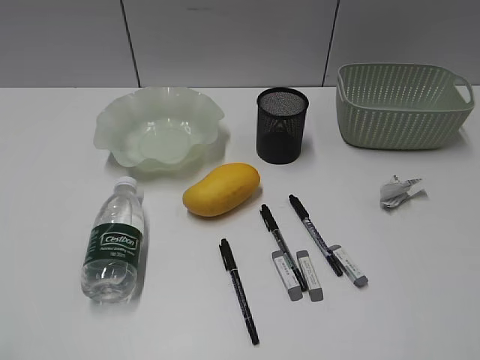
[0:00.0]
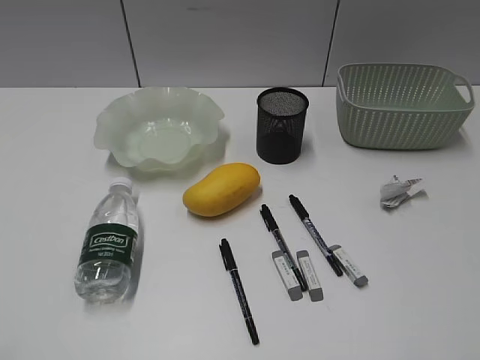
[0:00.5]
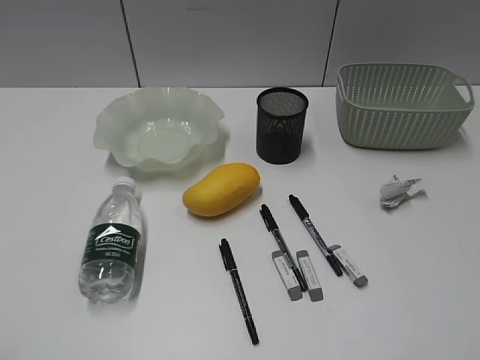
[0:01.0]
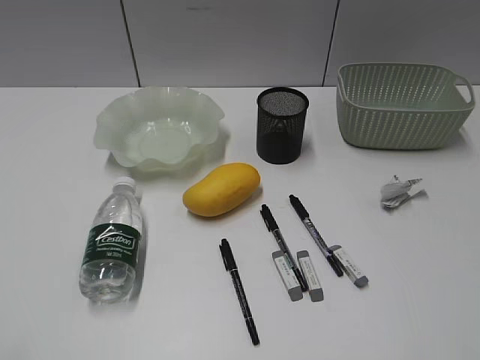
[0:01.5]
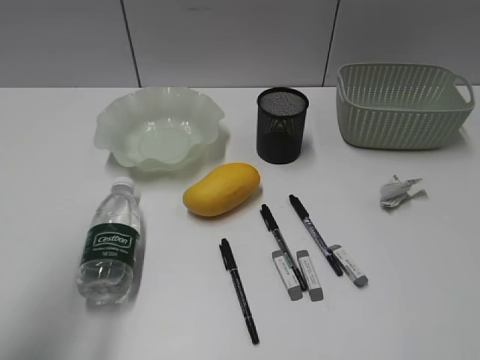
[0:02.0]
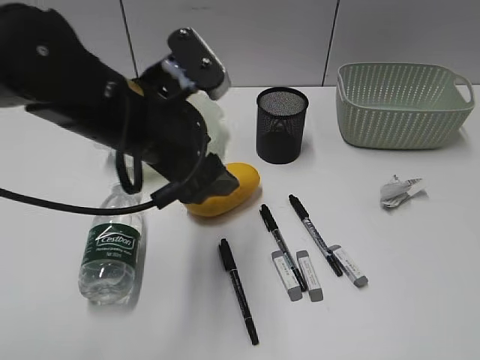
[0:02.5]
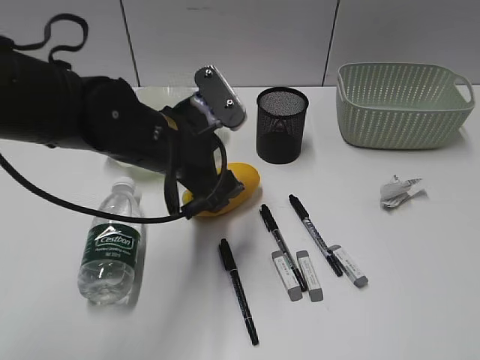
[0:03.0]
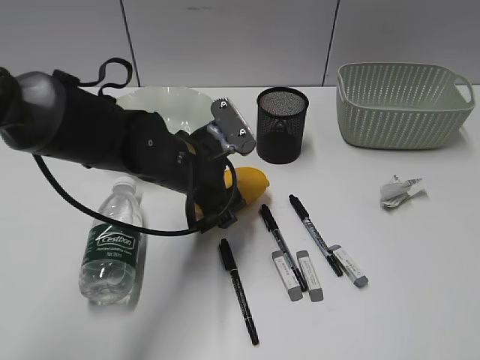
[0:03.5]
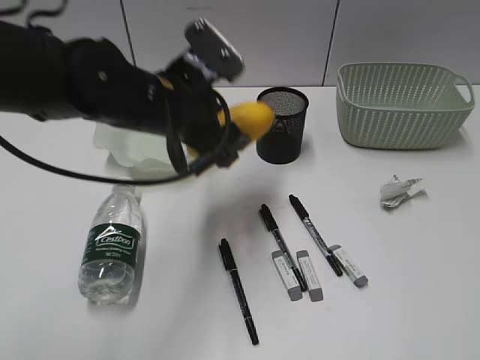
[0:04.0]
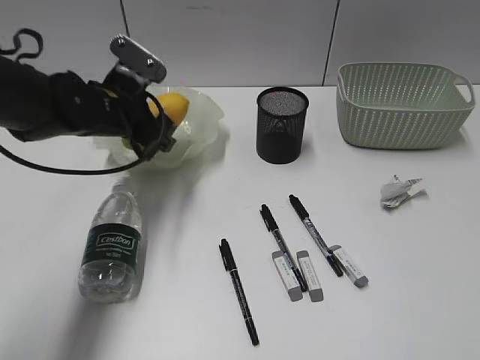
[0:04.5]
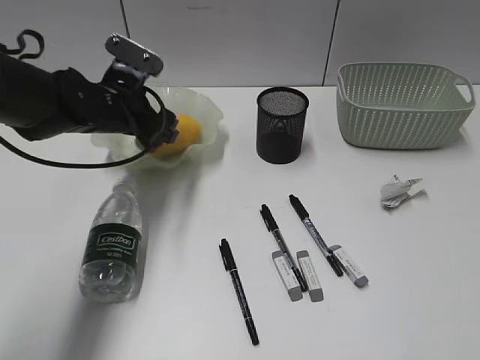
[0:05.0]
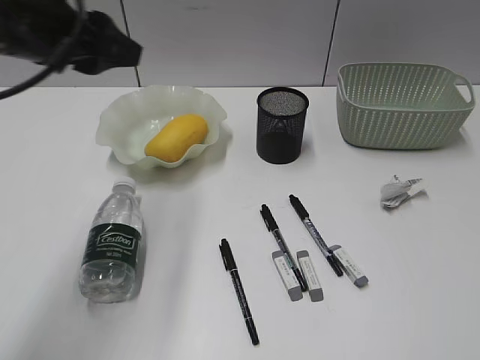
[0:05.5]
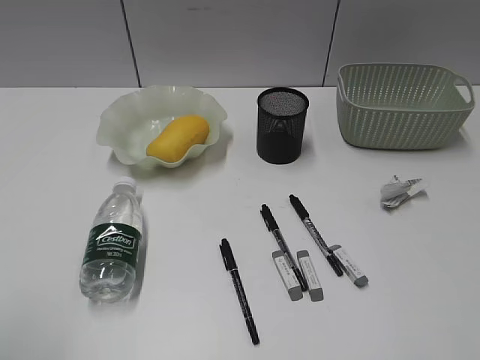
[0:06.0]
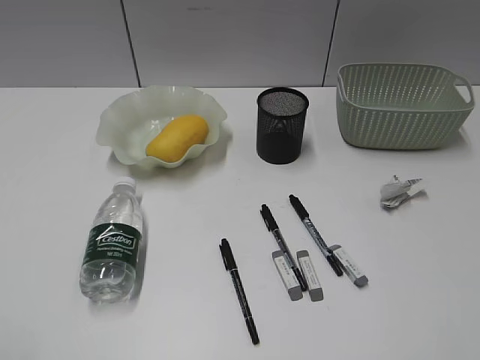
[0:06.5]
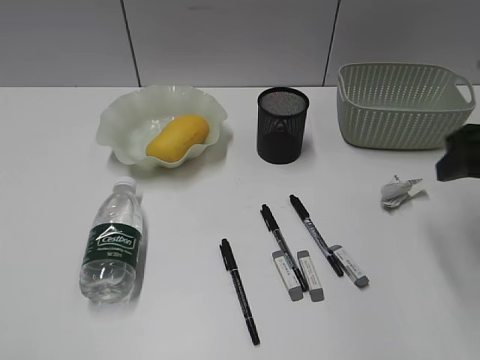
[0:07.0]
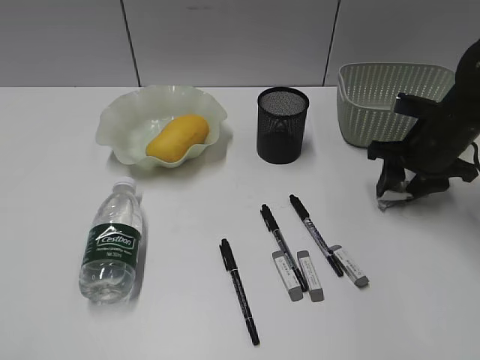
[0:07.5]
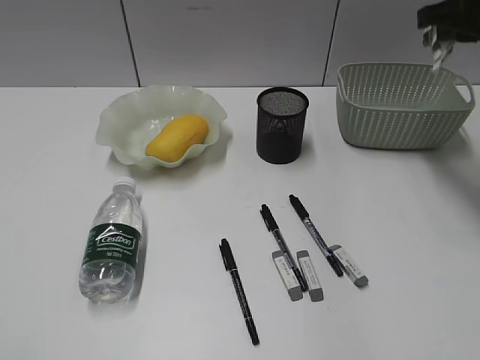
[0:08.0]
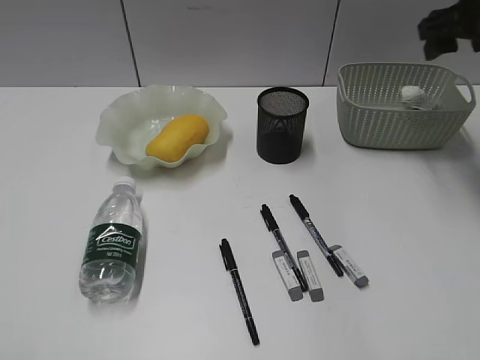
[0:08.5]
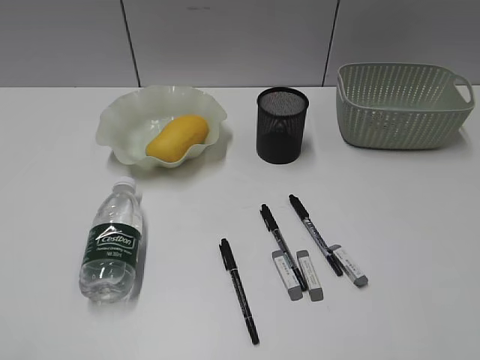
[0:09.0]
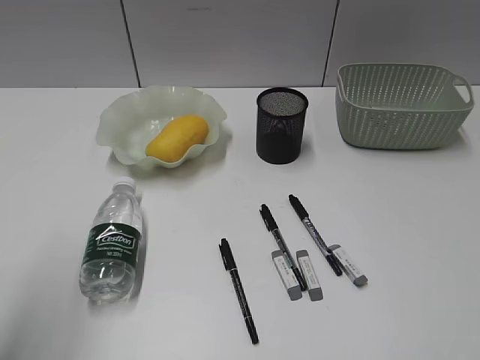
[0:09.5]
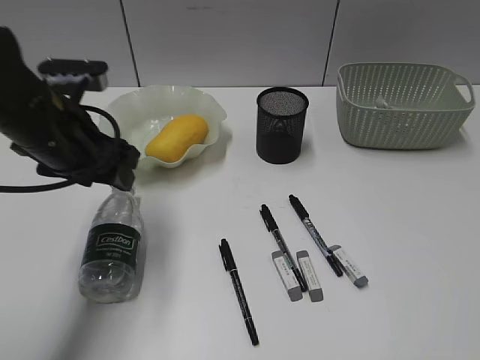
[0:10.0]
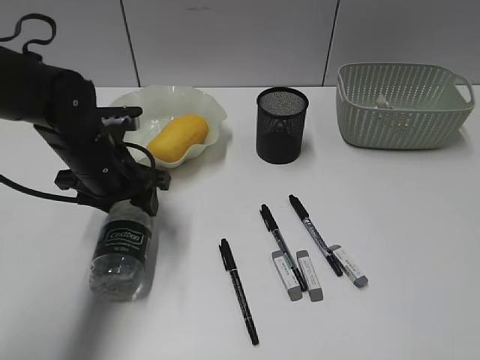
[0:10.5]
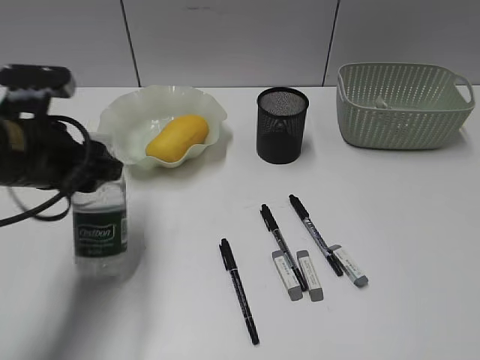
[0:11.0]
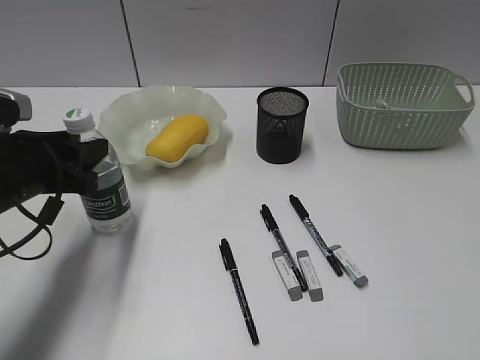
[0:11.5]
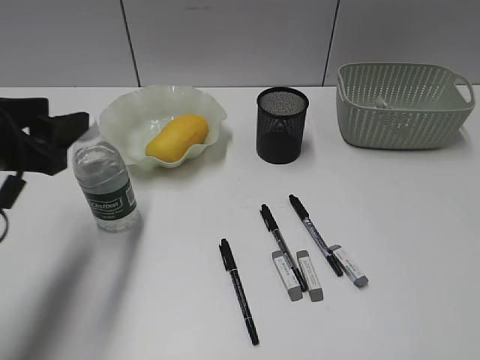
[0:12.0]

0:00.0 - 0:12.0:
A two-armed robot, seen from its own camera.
Step, 0:02.0 - 0:03.5: Grasp the mango with left gripper.
Step, 0:04.0 - 0:05.0: Place the mango in the plate with left gripper.
Step, 0:05.5 - 0:07.5: Grasp the waste paper with right gripper.
Step, 0:08.5 - 0:10.5: Grasp the bottle with left gripper.
Step, 0:11.0 - 0:12.0: Stand the bottle with left gripper.
0:02.0 - 0:04.0: The left gripper moves to the right, forward and downward, approximately 25 cm.
0:04.0 - 0:06.0: The left gripper moves backward, to the left and upward, some 35 cm.
0:06.0 - 0:08.0: The right gripper travels forward by roughly 40 cm, and closes up.
0:08.0 - 0:10.0: The left gripper heads forward and to the right, covering approximately 35 cm. Meanwhile the right gripper travels backward by approximately 40 cm, and opens up.
0:10.0 - 0:12.0: The left gripper goes roughly 10 cm backward and to the left.

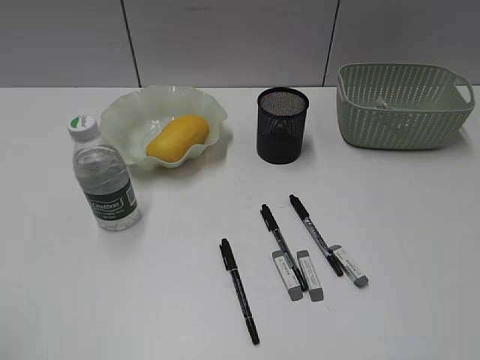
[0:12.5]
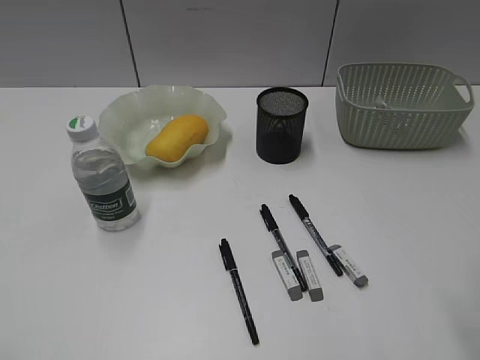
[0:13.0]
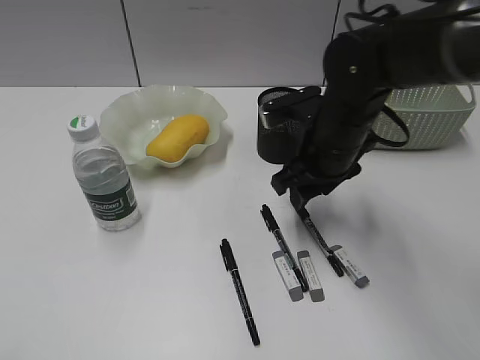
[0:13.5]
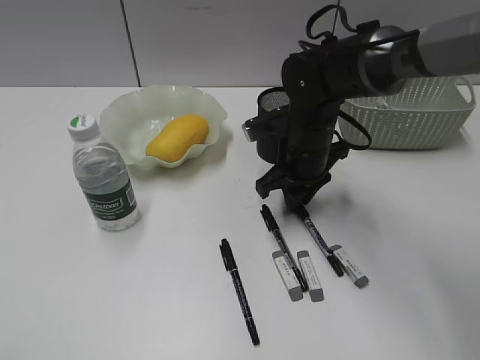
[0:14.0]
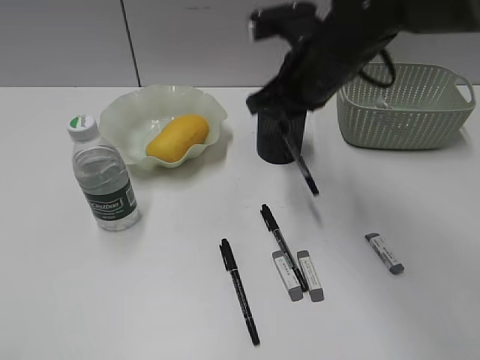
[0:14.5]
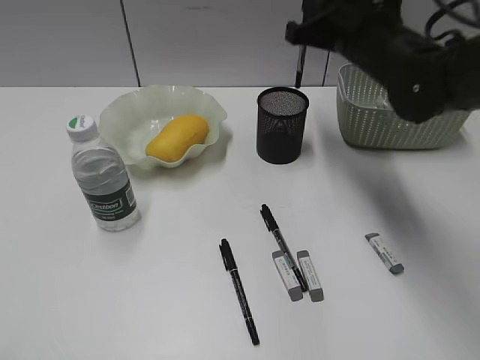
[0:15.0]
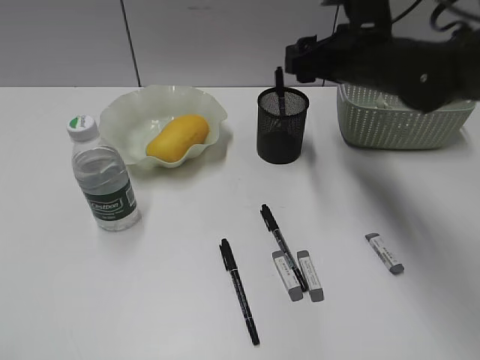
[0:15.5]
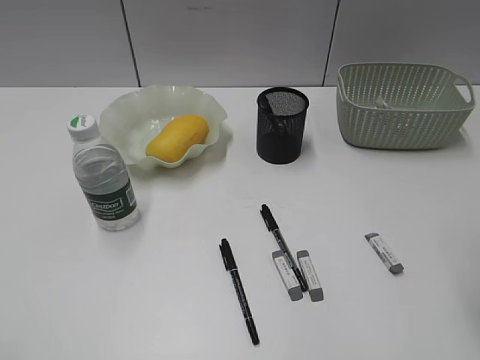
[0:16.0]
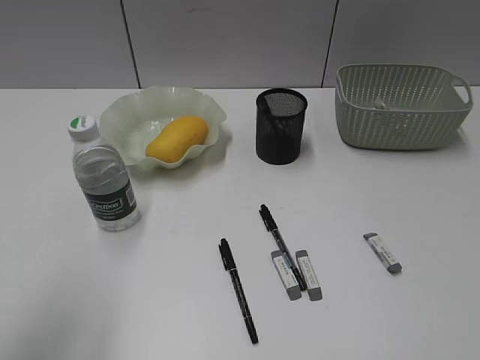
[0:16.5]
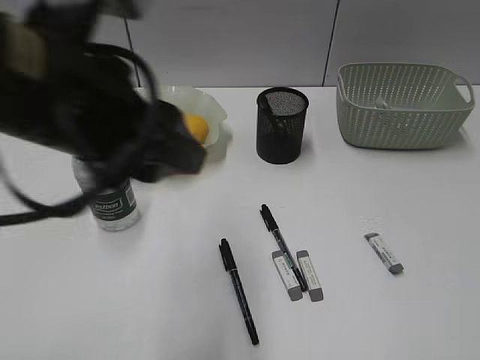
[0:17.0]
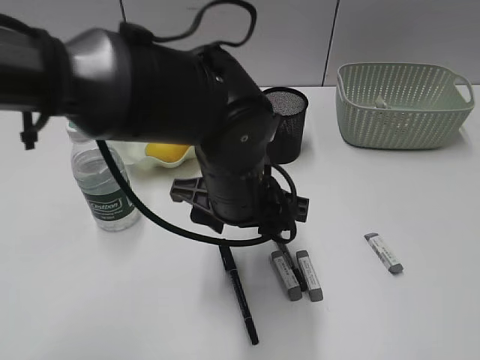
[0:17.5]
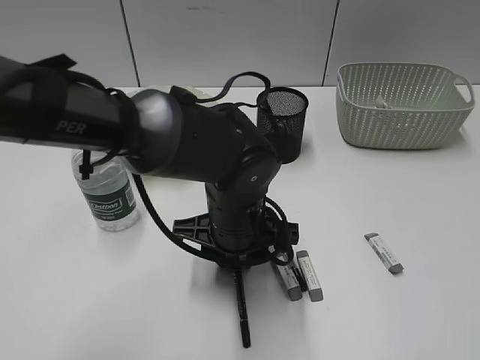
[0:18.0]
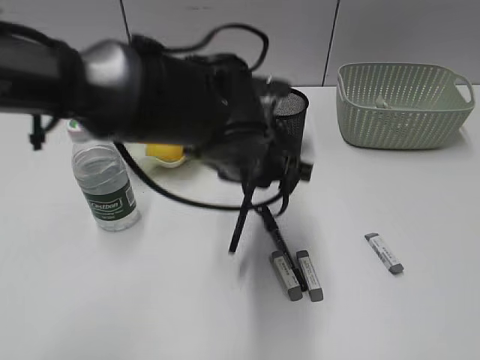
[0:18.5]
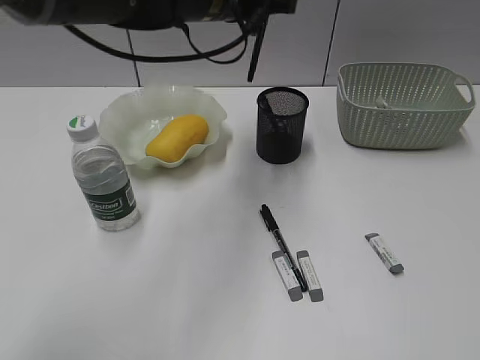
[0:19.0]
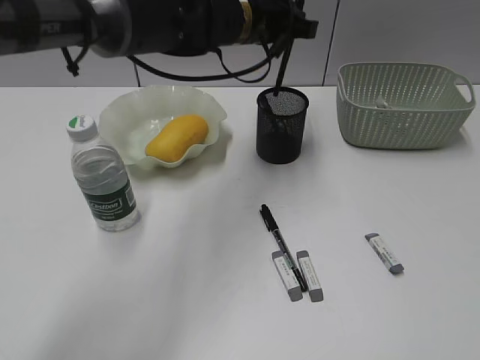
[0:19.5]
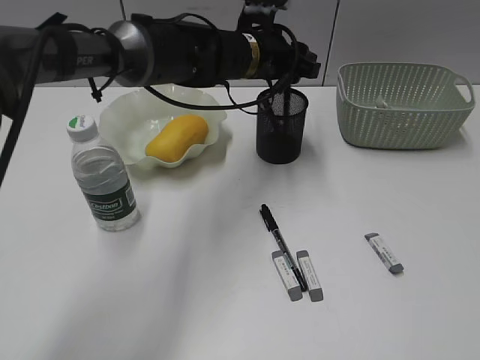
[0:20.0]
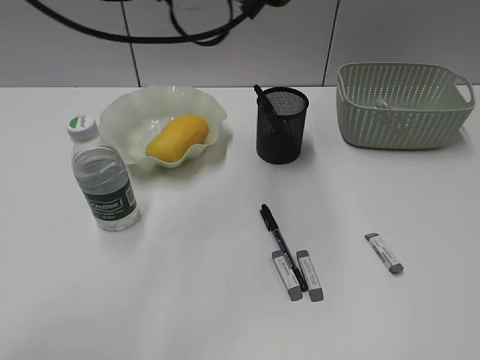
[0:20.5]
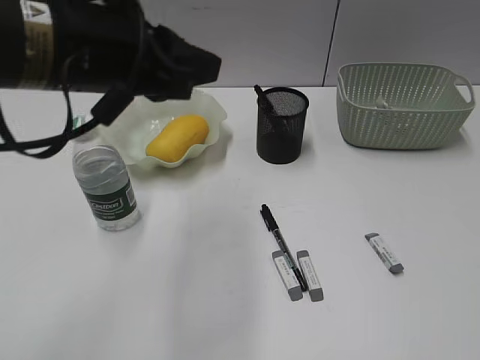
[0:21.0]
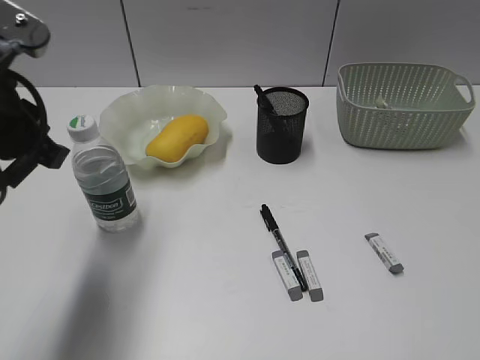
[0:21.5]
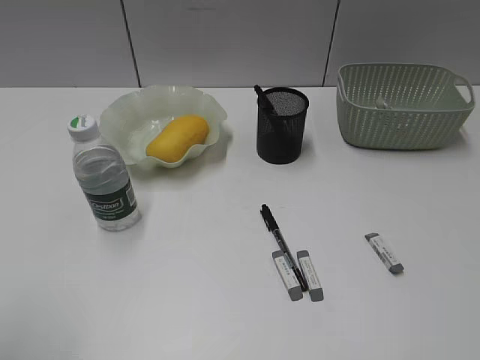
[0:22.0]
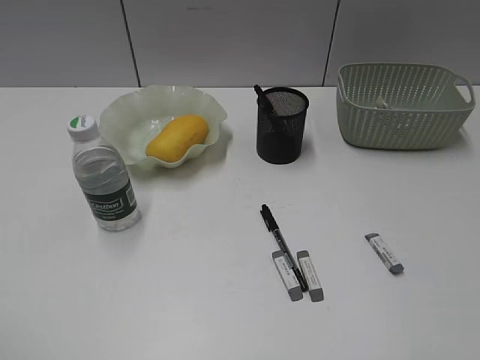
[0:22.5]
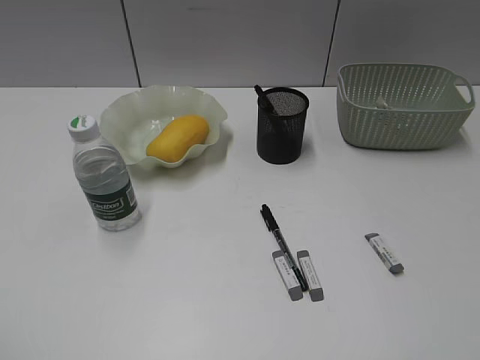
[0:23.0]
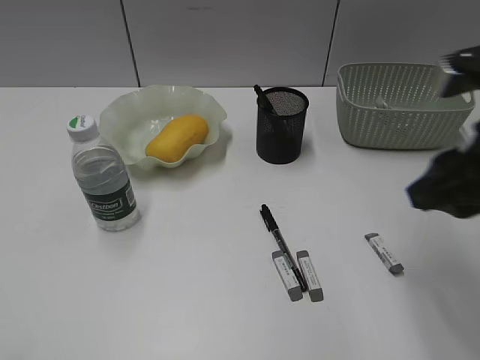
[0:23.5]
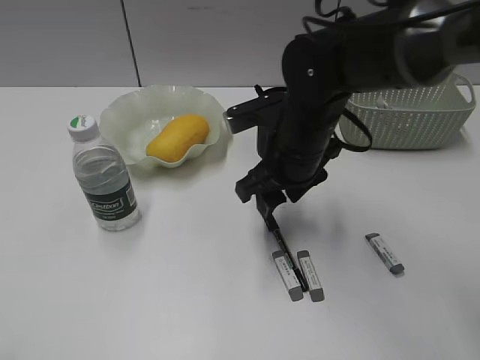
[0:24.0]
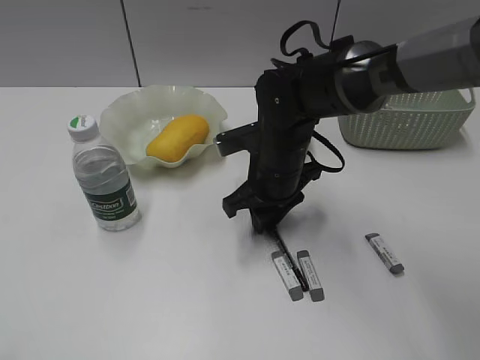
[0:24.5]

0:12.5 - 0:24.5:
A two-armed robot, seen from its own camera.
Step, 0:12.5 - 0:14.0: Grasp the black pen with right gripper.
Step, 0:14.5 - 0:15.5: Place the black pen in pen holder with right gripper.
Step, 0:16.0 - 0:18.0: Grasp the black pen with left gripper.
Step, 0:18.5 - 0:20.0: Place the black pen in pen holder with left gripper.
0:12.5 - 0:14.5: The right gripper is displaced forward and to the left by approximately 40 cm, and closes.
0:14.5 - 0:16.5: The left gripper shifts approximately 15 cm forward and to the right. Meanwhile the right gripper is displaced backward and to the right by about 40 cm, and opens up.
0:16.5 - 0:18.5: The left gripper shifts approximately 35 cm to the right, forward and downward, and closes up.
0:18.5 - 0:20.5: The left gripper moves upward and forward, about 15 cm, and opens, then closes again.
0:20.5 - 0:22.5: The left gripper moves backward and to the left, roughly 40 cm, and opens its fingers.
0:22.5 - 0:24.5: The right gripper is displaced forward, to the left and downward by about 50 cm.

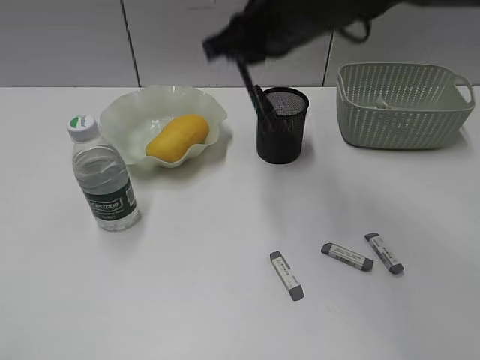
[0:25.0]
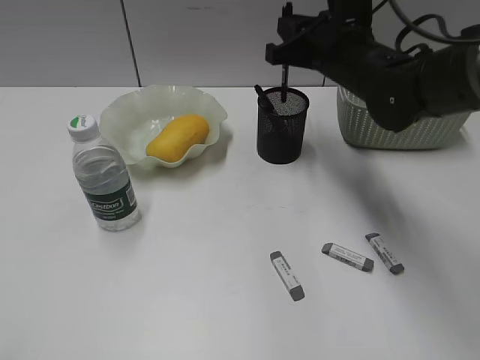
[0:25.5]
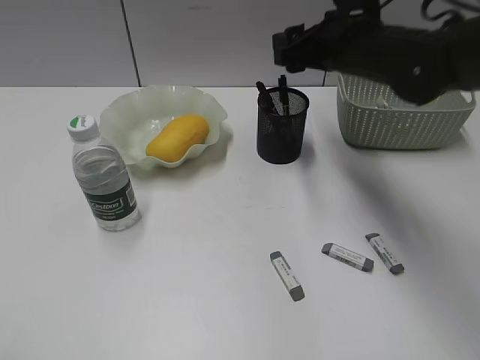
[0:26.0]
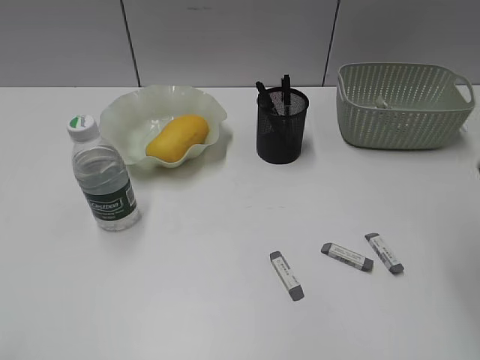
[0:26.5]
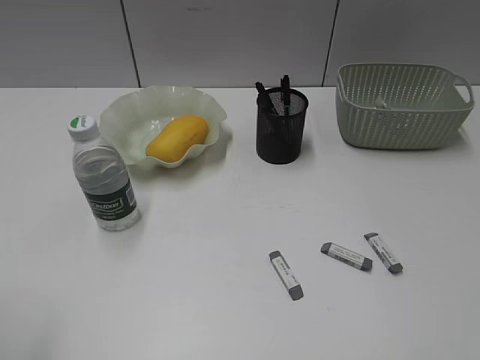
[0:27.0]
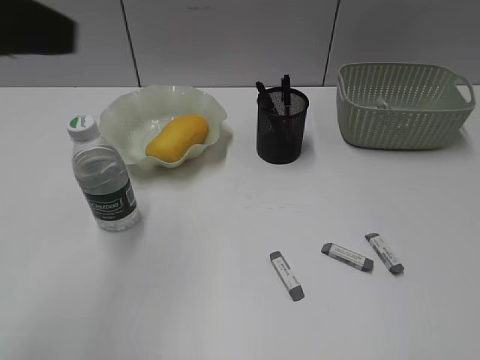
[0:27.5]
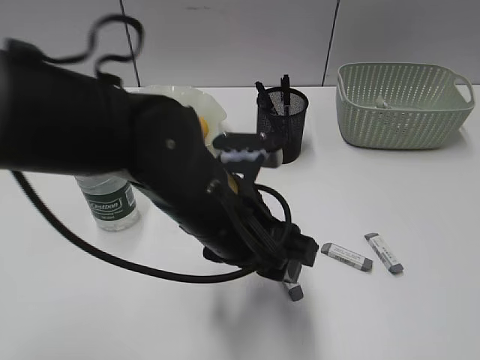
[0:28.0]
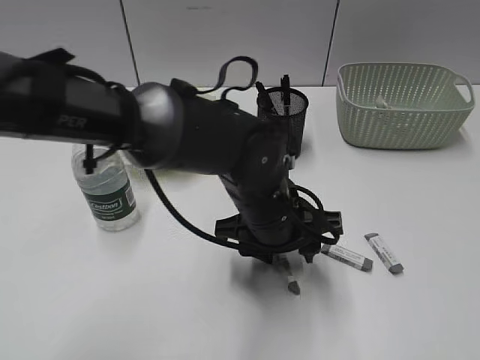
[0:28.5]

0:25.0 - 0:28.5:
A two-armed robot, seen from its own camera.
Step, 0:25.0 - 0:26.0: Place the black pen in pen holder with right gripper.
0:25.0 - 0:27.0: The right gripper shifts roughly 40 cm backward and to the right, and opens up, while the left gripper shifts by roughly 5 cm.
0:27.0 - 0:28.5: The left gripper travels to the right, forward and downward by about 50 cm.
